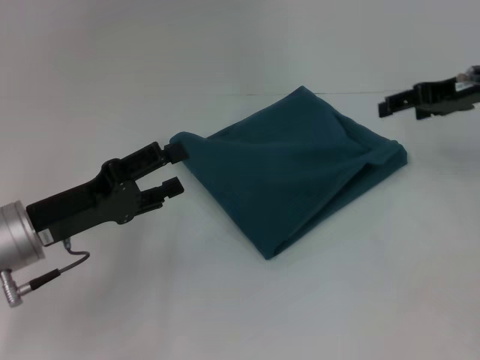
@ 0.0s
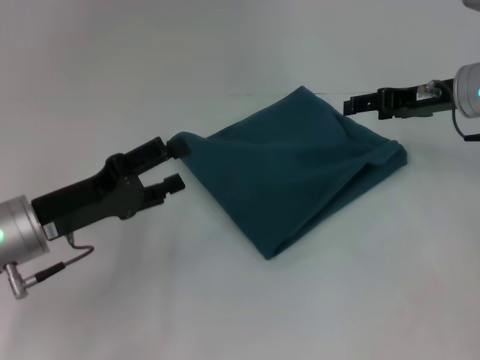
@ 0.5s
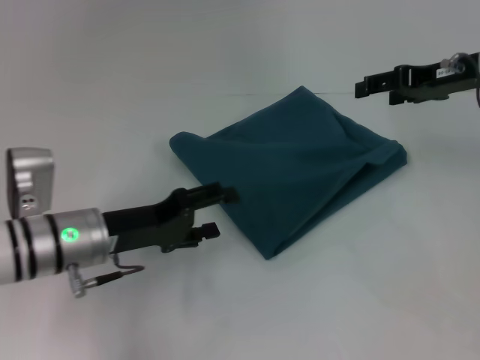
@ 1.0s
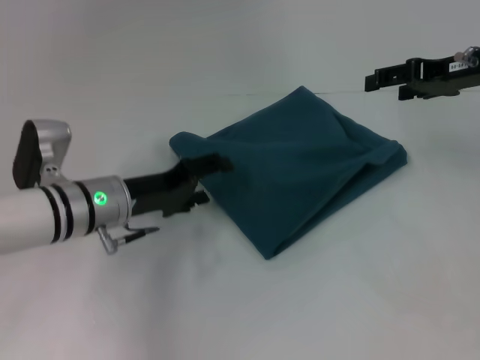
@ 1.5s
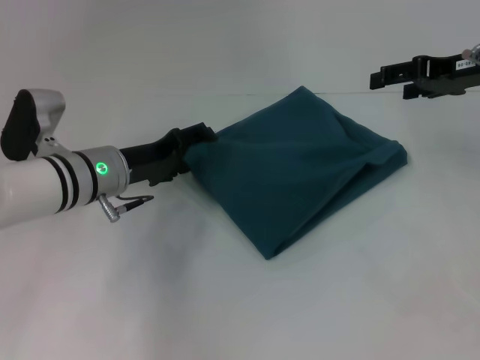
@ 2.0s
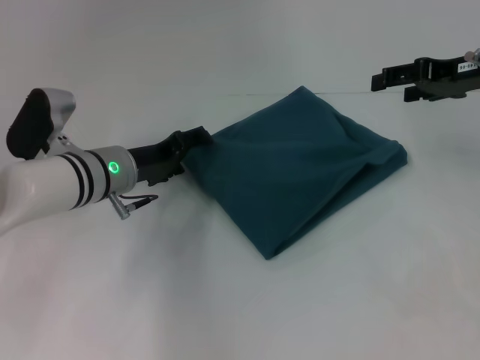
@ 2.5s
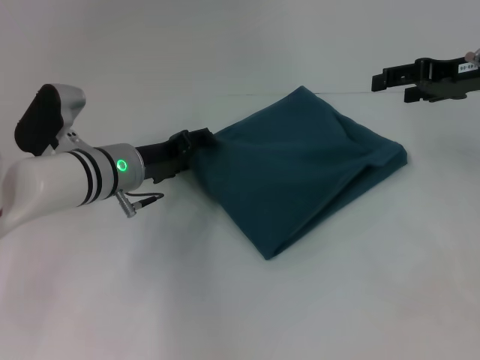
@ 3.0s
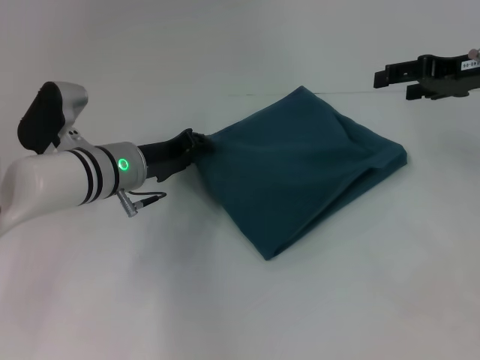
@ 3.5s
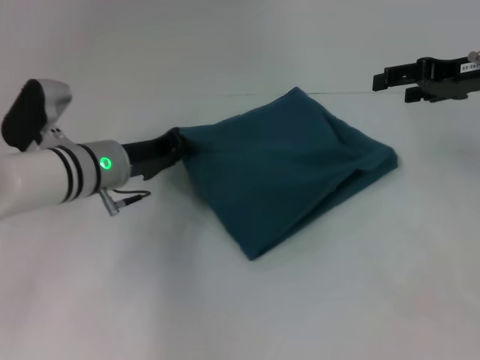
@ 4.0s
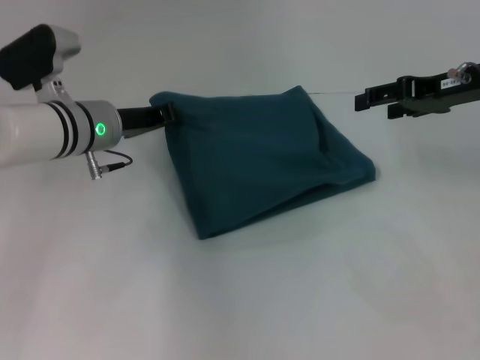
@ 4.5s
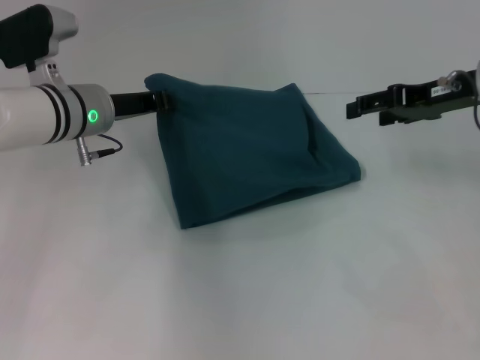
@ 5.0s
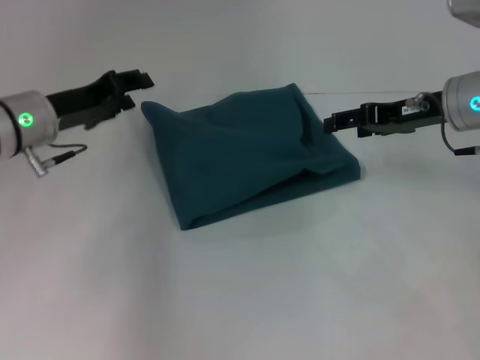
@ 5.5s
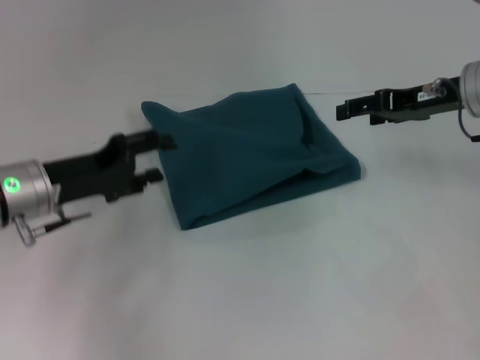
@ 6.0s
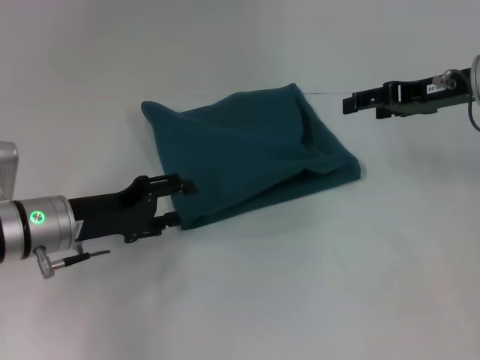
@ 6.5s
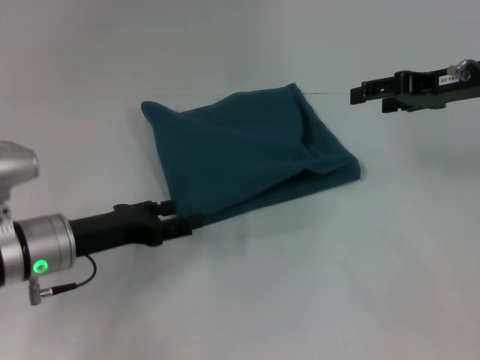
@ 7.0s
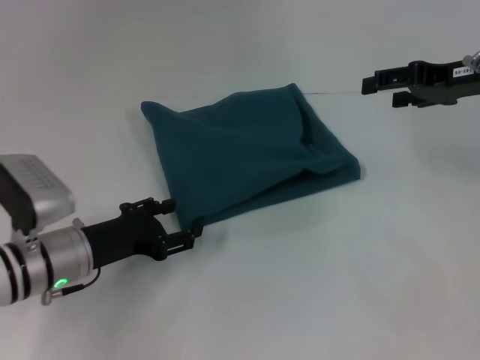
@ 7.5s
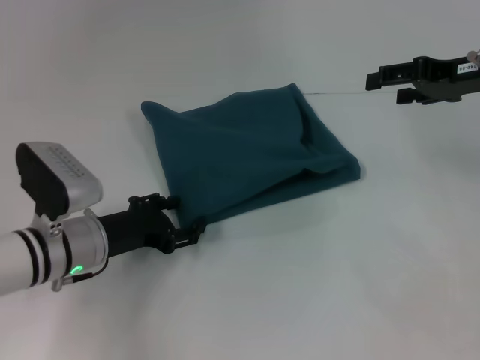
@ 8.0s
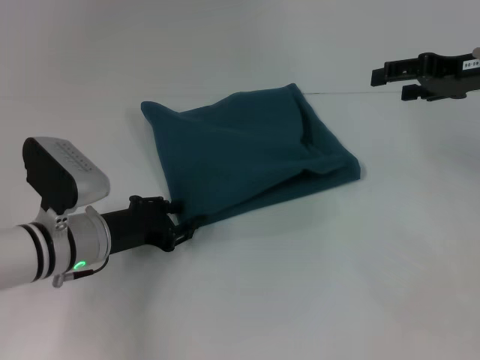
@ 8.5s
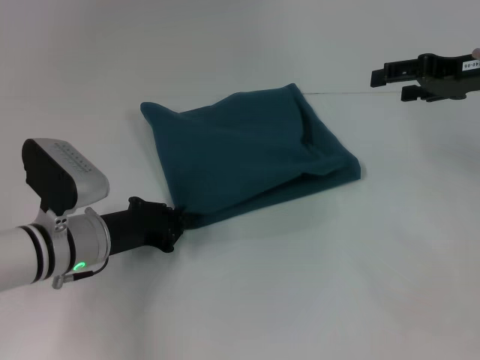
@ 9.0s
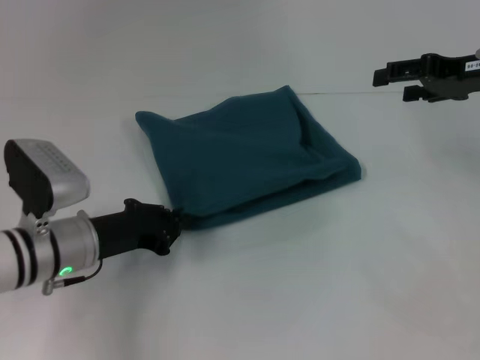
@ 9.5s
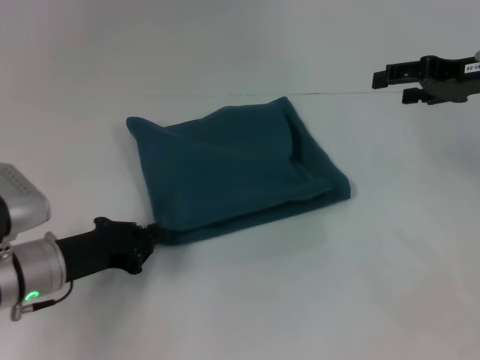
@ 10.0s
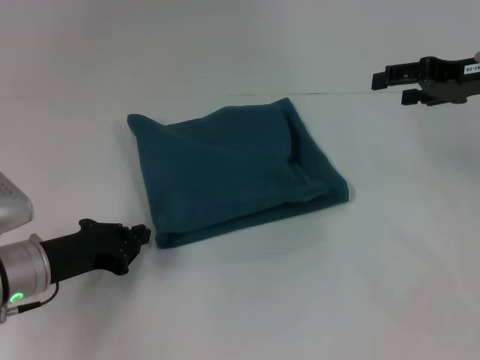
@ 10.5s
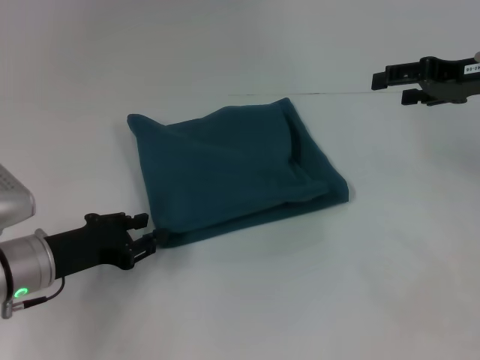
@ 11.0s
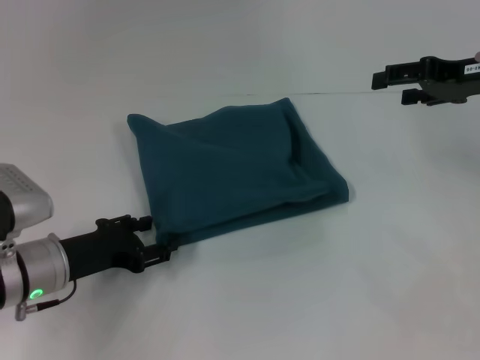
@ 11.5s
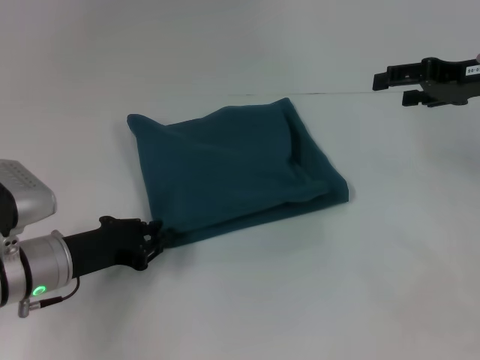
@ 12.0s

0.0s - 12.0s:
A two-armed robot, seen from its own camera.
0.0s - 2.0s: The left gripper heads forward and to the right, covering some 10 cm.
2.0s - 4.0s: The left gripper closes.
4.0s - 6.0s: The left gripper moves to the left and backward, about 10 cm, and opens.
6.0s - 8.0s: The left gripper moves downward, about 5 cm.
8.0s - 10.0s: The left gripper closes up.
10.0s - 12.0s: The left gripper opens and closes again.

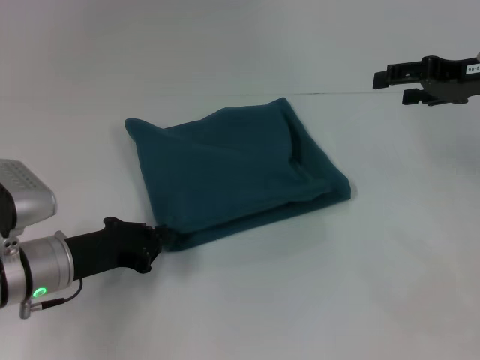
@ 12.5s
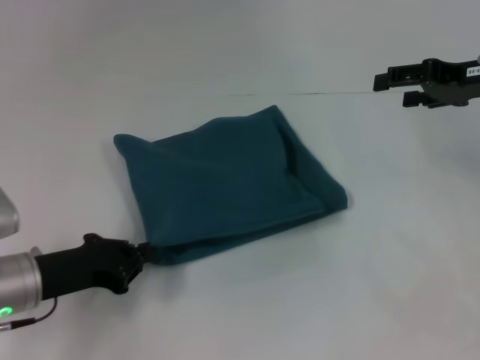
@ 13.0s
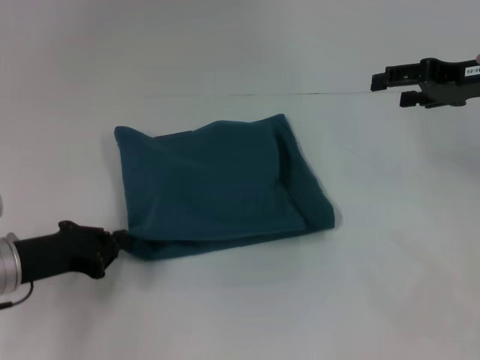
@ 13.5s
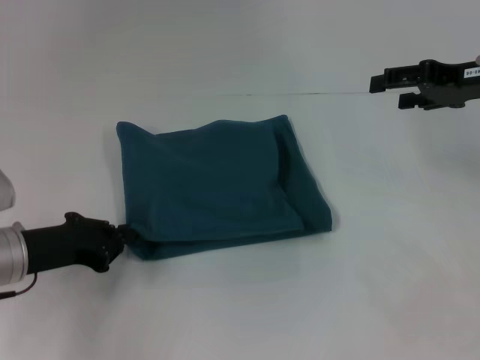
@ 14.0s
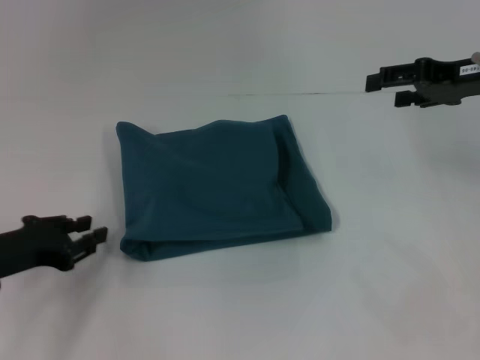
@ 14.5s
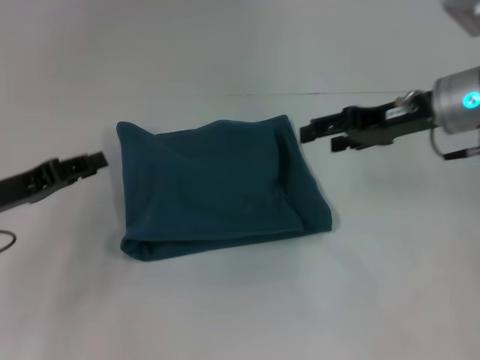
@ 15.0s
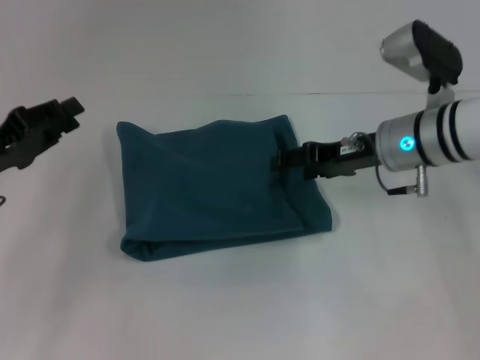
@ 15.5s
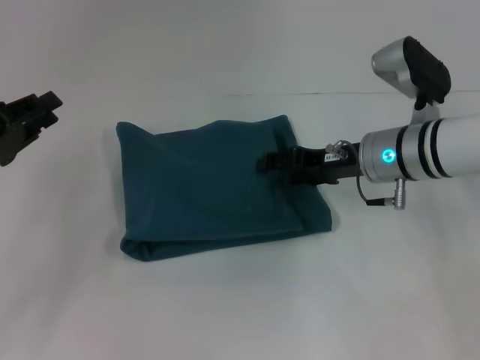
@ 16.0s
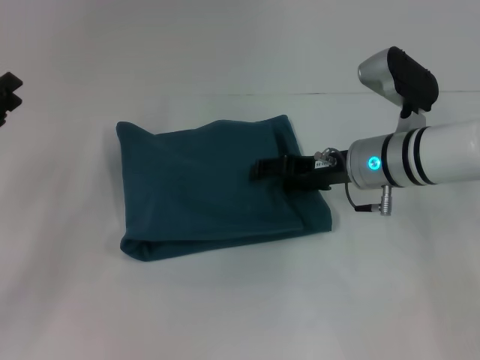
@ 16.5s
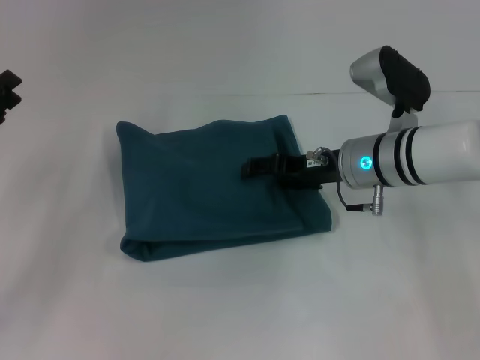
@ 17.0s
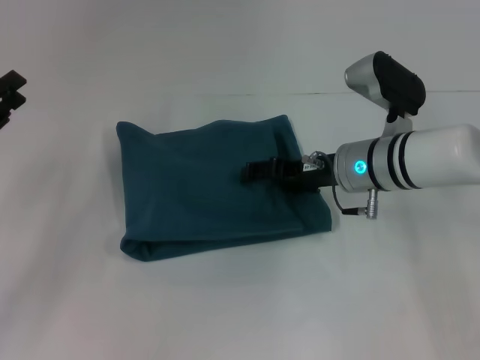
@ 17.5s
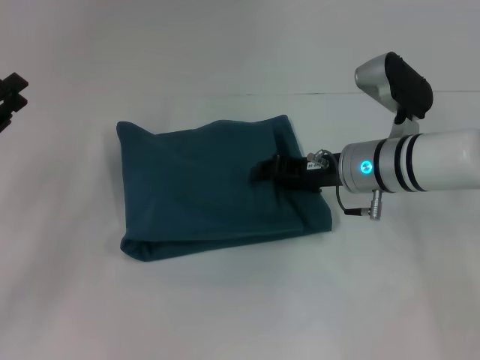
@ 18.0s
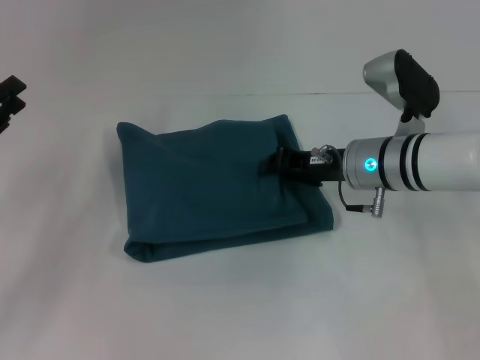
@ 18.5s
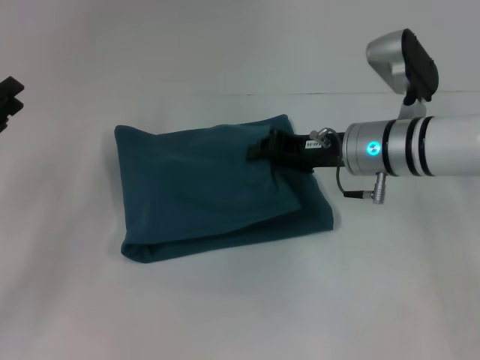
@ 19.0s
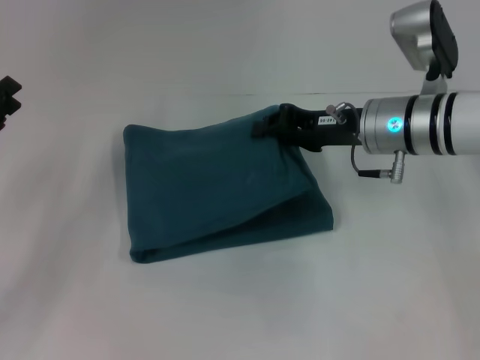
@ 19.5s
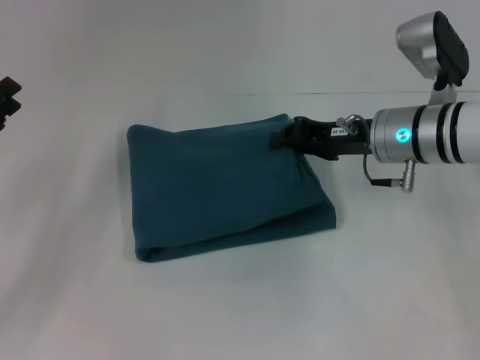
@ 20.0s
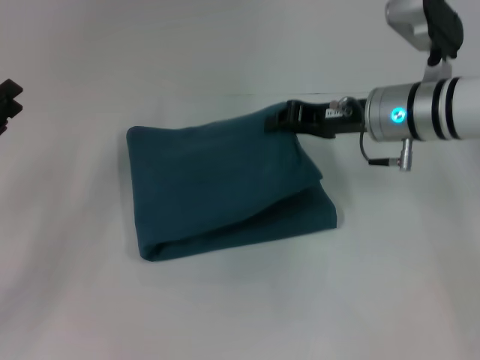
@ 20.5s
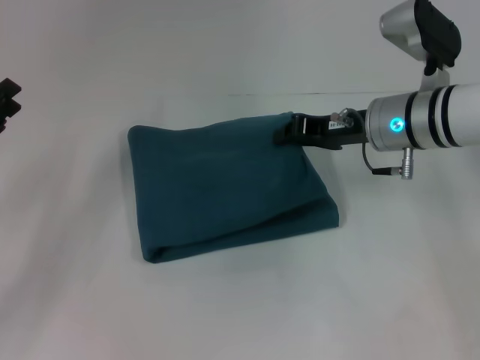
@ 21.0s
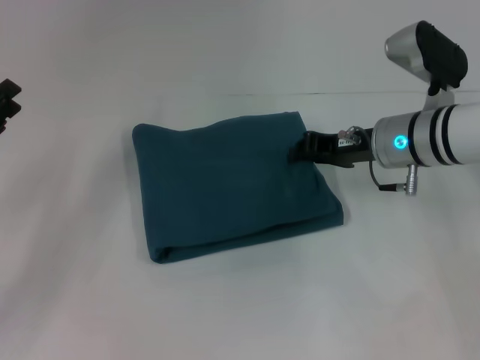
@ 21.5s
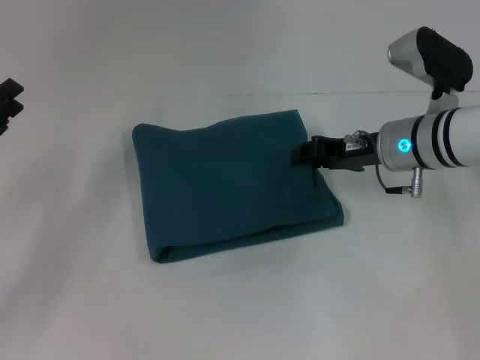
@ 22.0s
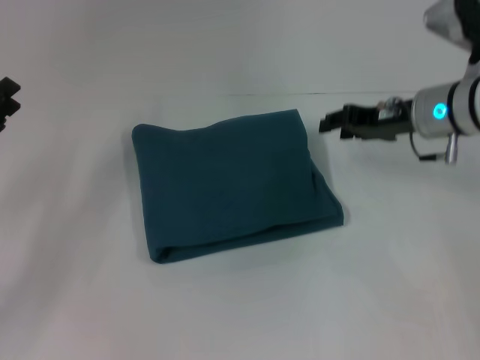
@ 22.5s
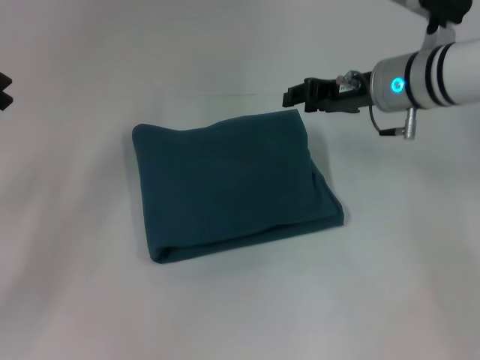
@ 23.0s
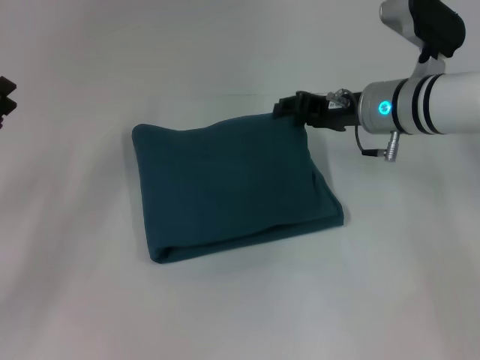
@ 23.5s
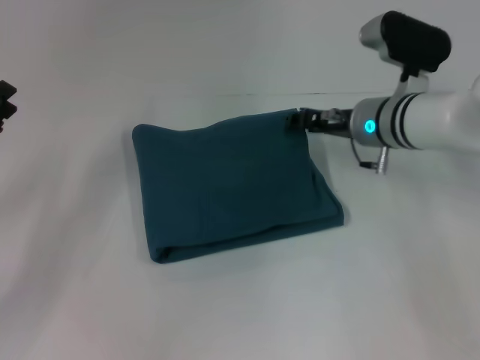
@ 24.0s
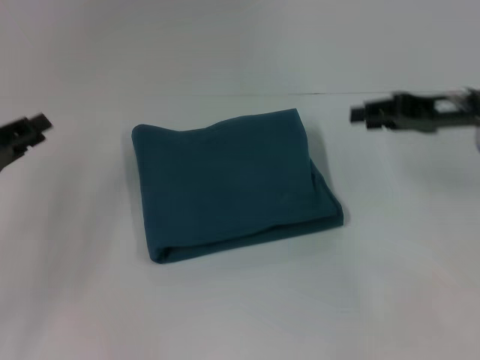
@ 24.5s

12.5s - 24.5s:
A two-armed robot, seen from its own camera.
12.5s - 14.5s: The left gripper travels to the left by some 5 cm.
14.5s - 16.5s: The right gripper shifts roughly 15 cm to the left and downward, while the left gripper changes place by about 5 cm.
16.5s - 18.5s: The right gripper closes its fingers.
18.5s - 20.5s: The right gripper heads upward, covering roughly 5 cm.
20.5s - 22.5s: The right gripper ends up some 5 cm from where it was, and opens up.
22.5s - 24.5s: The right gripper is displaced to the right by about 5 cm.

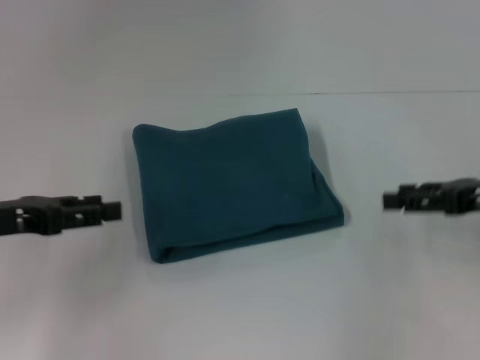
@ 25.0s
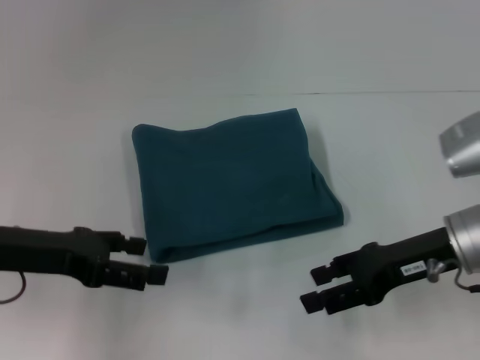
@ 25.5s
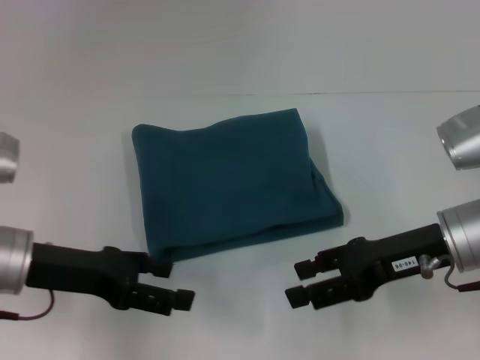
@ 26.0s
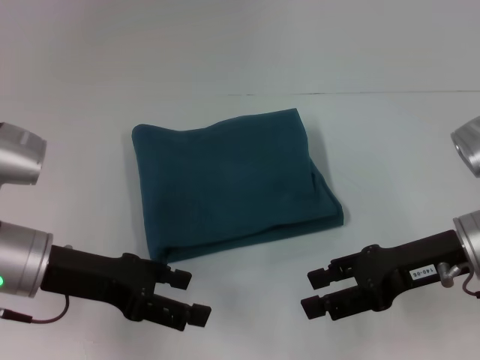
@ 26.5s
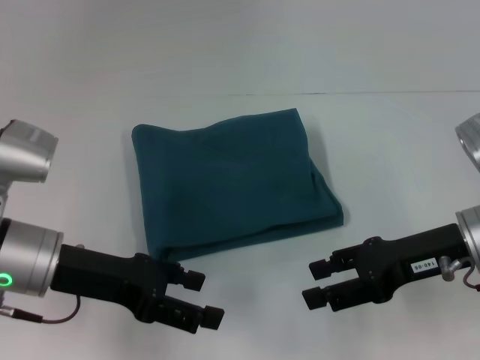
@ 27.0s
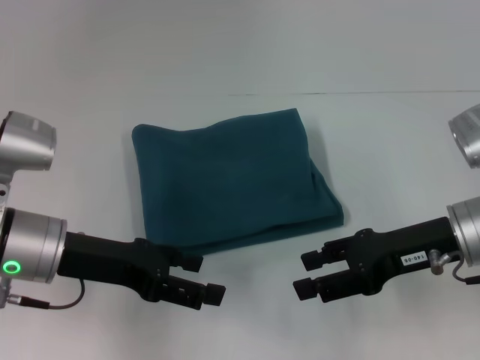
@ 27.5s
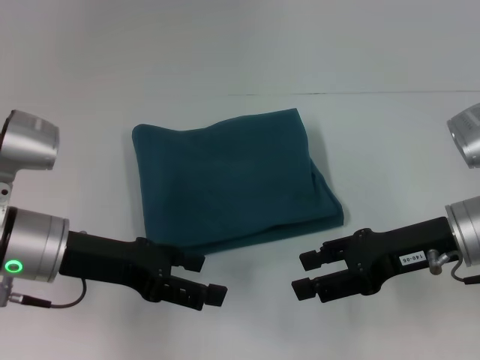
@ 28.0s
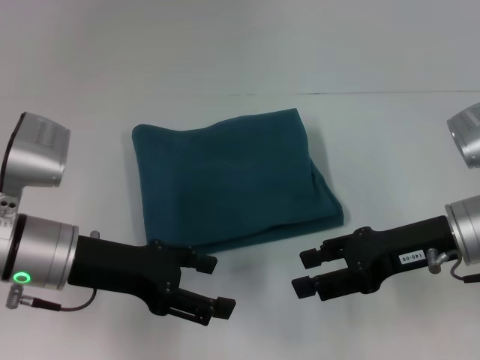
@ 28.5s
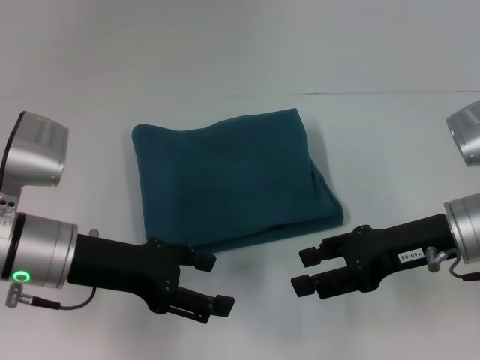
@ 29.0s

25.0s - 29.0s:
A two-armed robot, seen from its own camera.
25.0s - 27.0s: The right gripper heads to the left, covering some 10 cm. The left gripper travels to the right by approximately 10 cm, and opens up.
27.0s - 29.0s: There are only small adjustments of the grippers.
